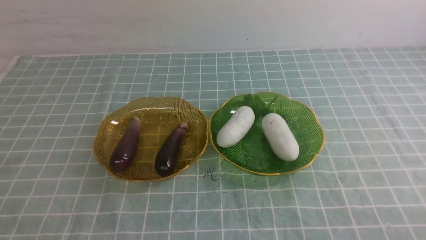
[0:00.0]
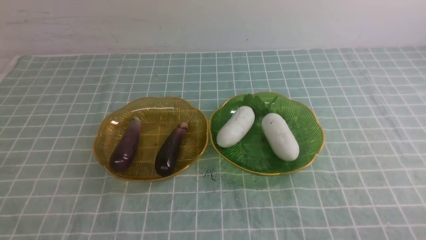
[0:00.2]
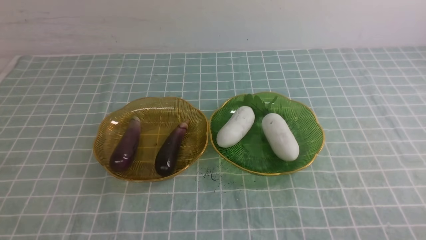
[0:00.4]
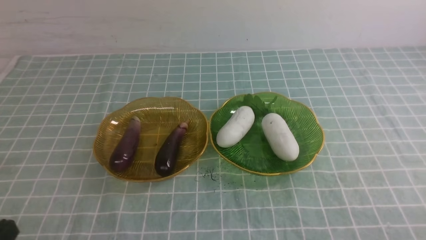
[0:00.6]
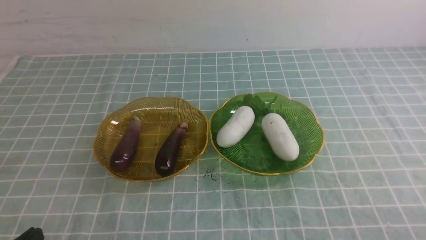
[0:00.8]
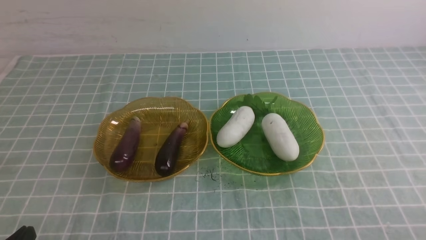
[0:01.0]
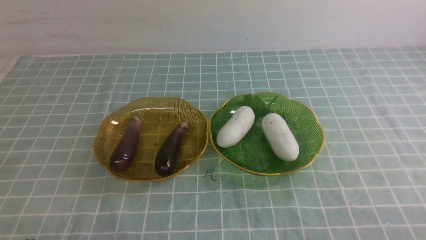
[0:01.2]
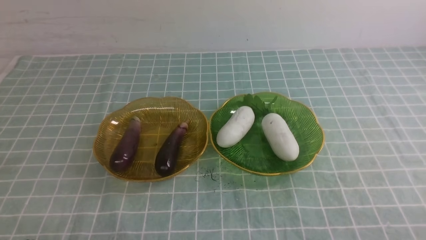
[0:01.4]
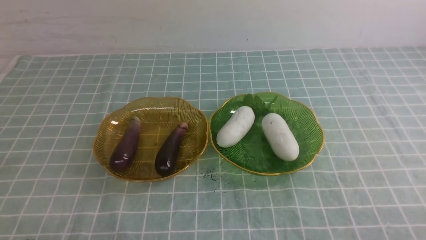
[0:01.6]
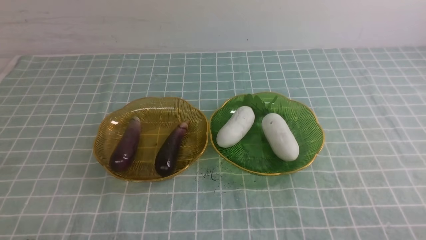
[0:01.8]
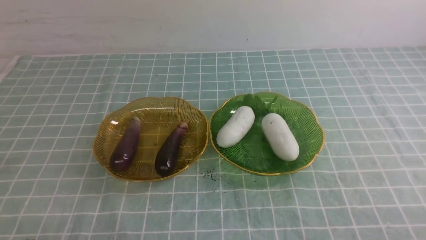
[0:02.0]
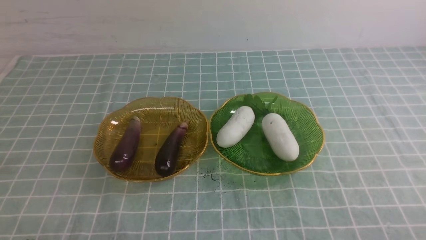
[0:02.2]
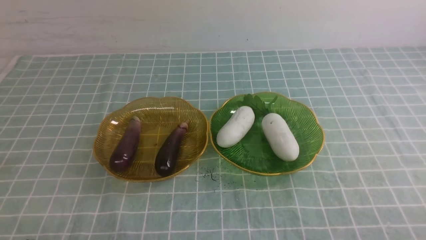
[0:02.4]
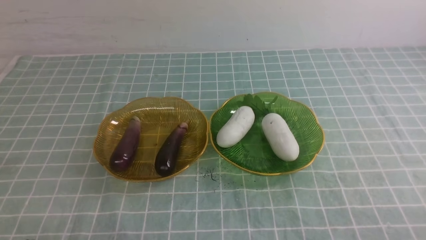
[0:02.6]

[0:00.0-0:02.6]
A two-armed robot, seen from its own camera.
0:01.2 to 0:02.6: Neither gripper changes place.
